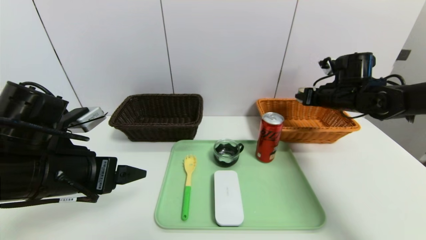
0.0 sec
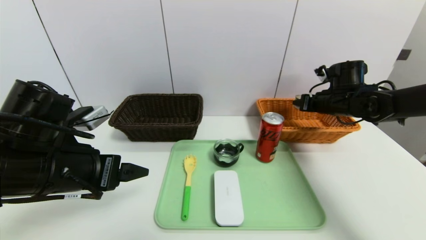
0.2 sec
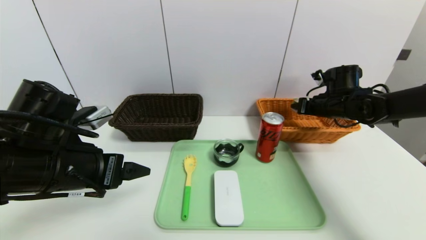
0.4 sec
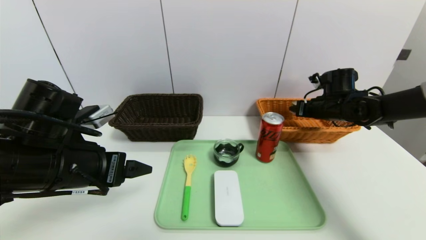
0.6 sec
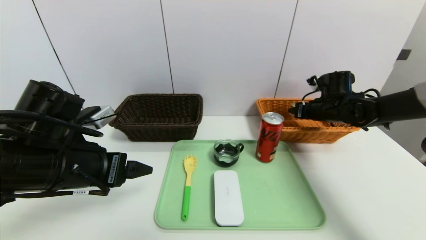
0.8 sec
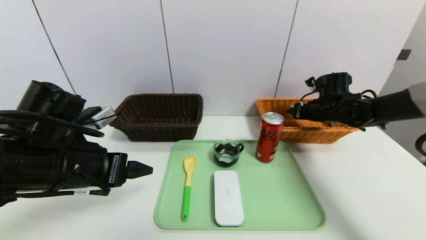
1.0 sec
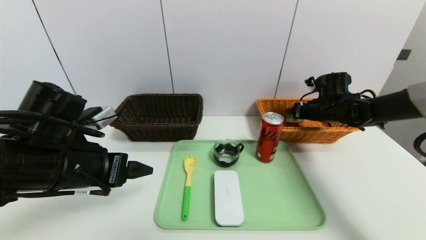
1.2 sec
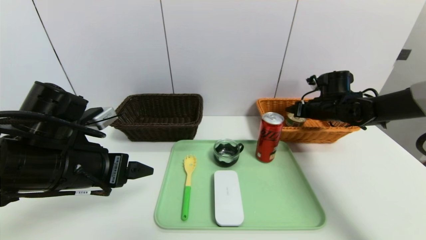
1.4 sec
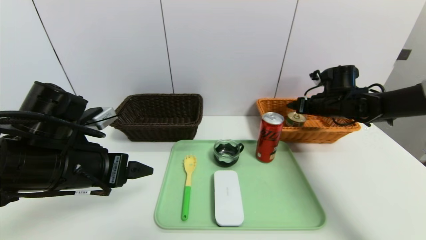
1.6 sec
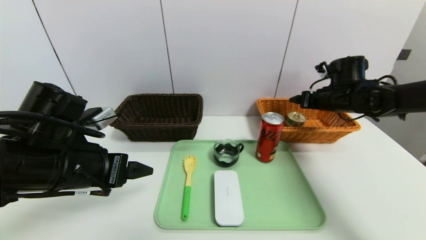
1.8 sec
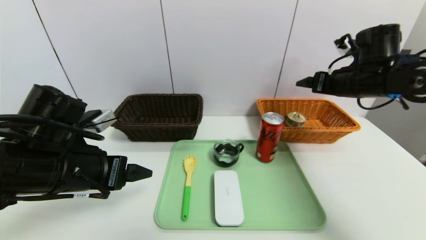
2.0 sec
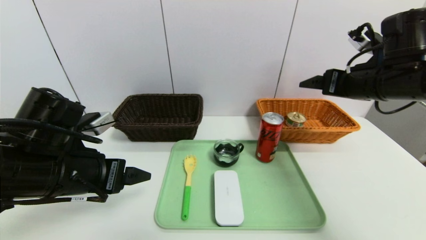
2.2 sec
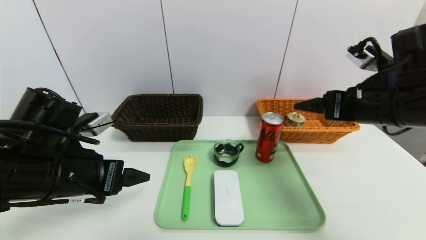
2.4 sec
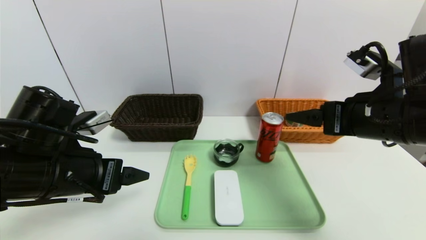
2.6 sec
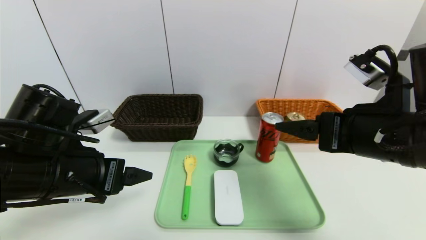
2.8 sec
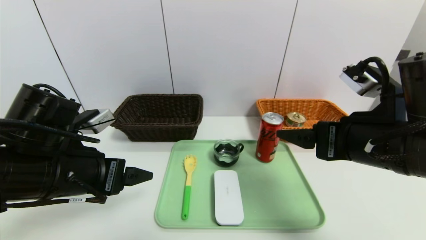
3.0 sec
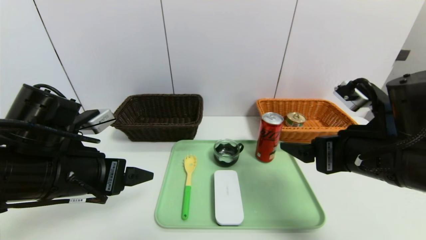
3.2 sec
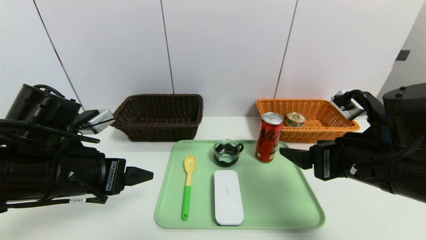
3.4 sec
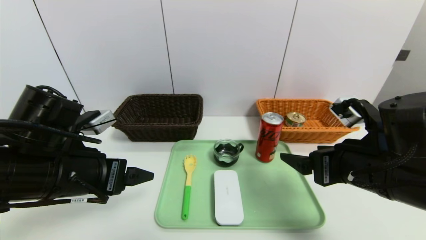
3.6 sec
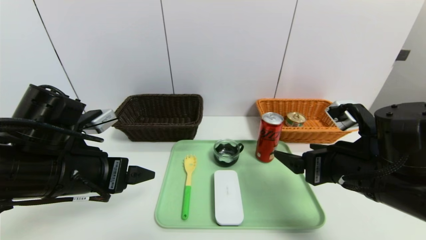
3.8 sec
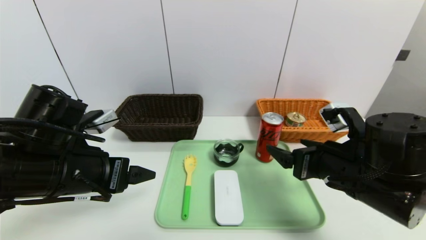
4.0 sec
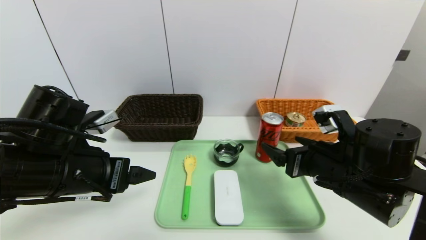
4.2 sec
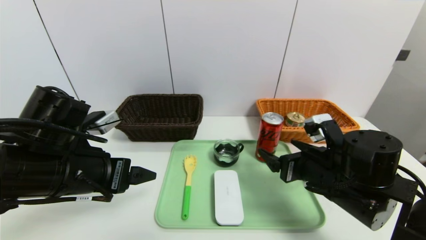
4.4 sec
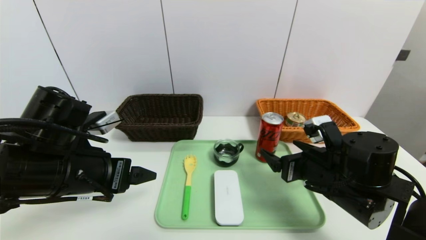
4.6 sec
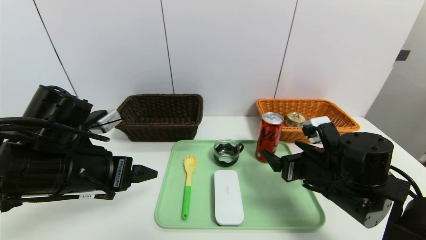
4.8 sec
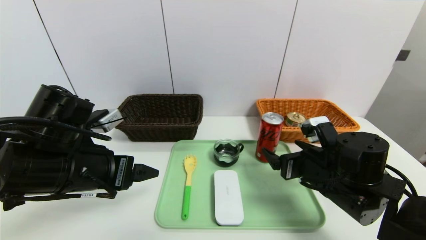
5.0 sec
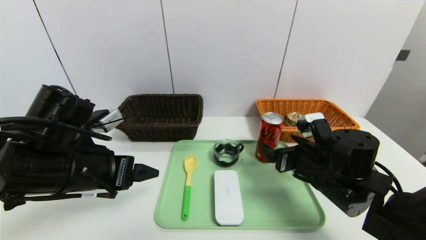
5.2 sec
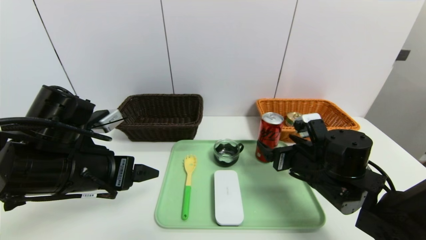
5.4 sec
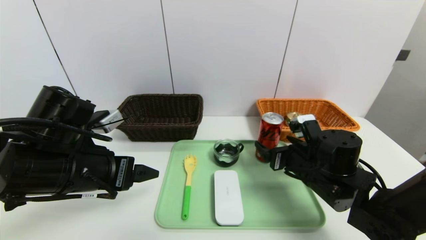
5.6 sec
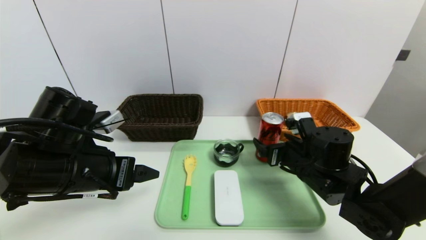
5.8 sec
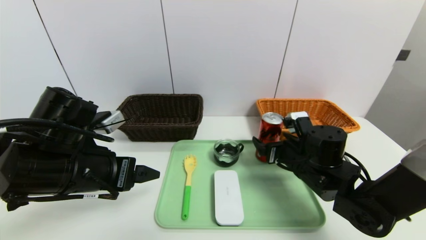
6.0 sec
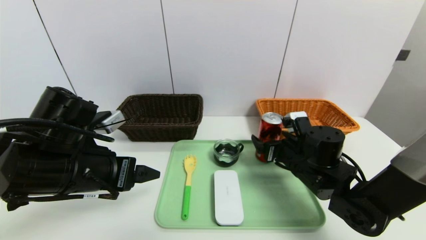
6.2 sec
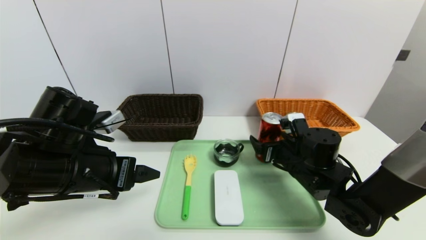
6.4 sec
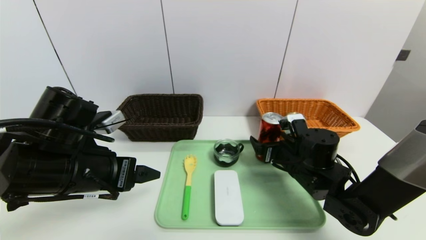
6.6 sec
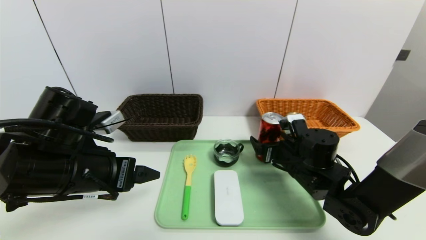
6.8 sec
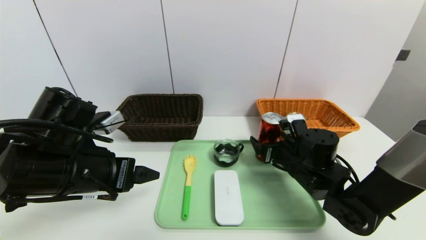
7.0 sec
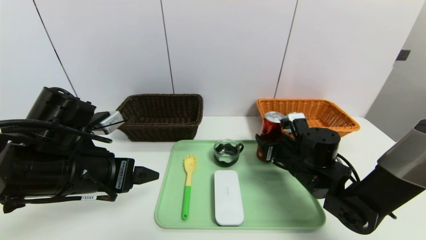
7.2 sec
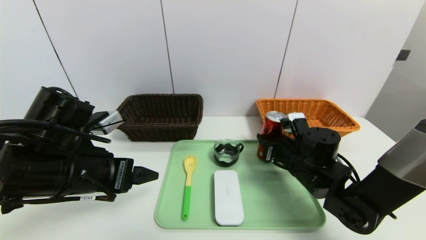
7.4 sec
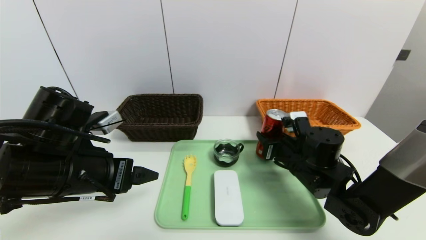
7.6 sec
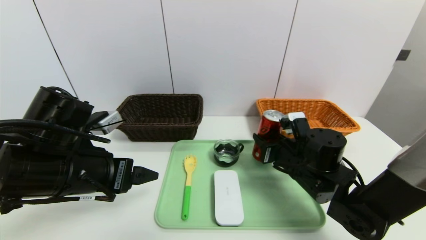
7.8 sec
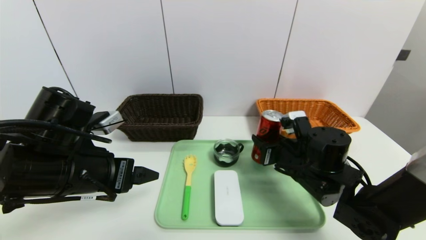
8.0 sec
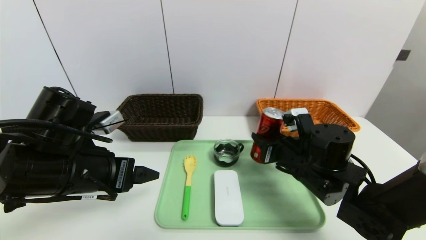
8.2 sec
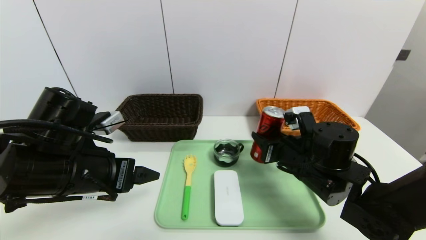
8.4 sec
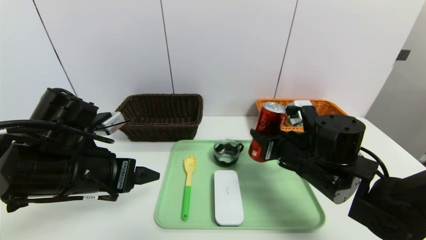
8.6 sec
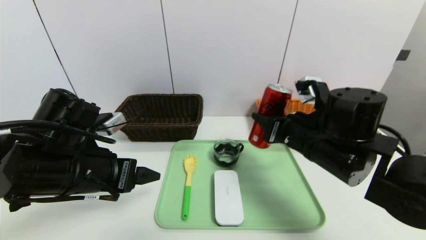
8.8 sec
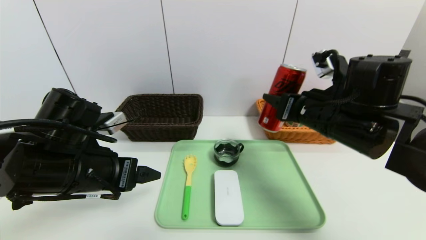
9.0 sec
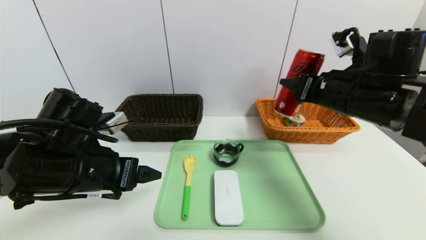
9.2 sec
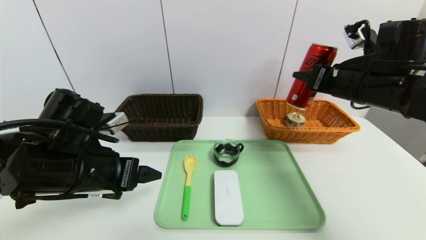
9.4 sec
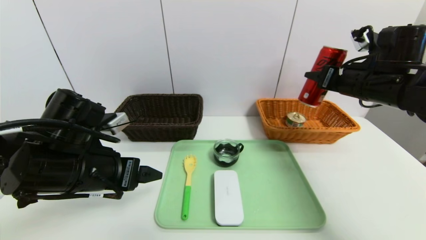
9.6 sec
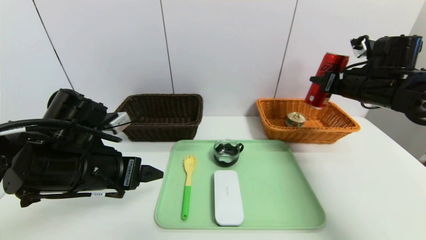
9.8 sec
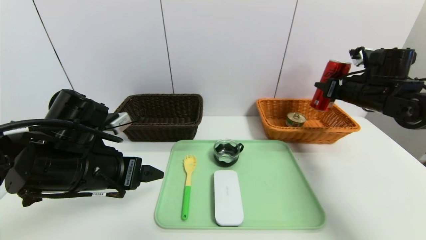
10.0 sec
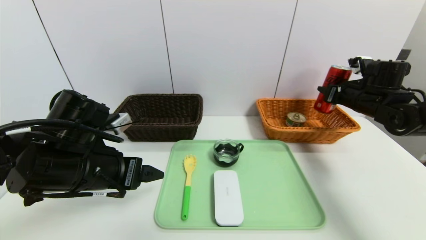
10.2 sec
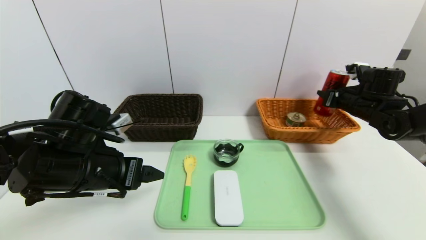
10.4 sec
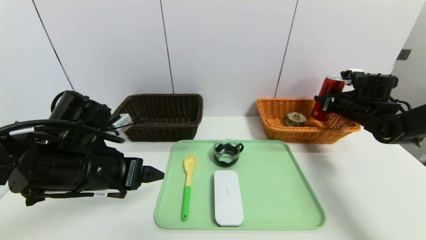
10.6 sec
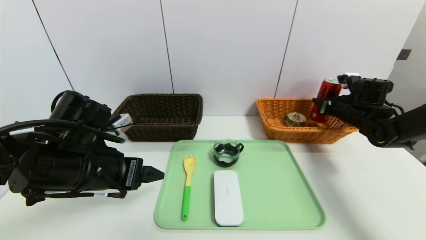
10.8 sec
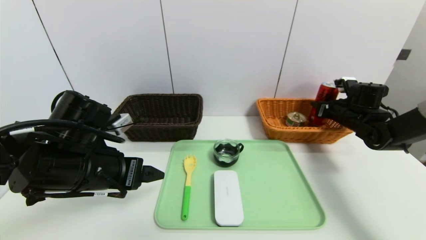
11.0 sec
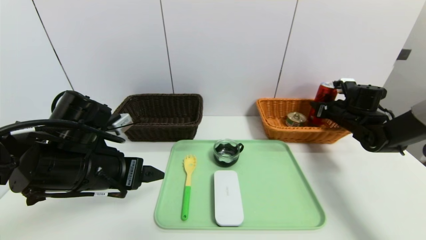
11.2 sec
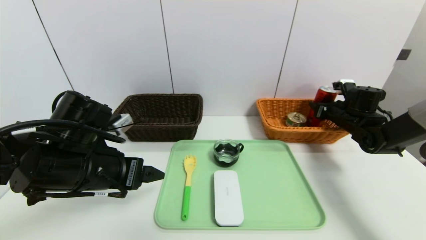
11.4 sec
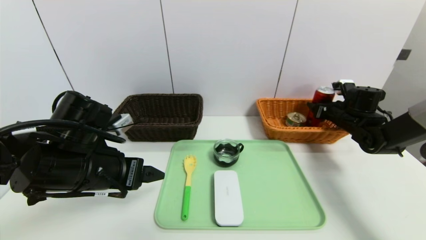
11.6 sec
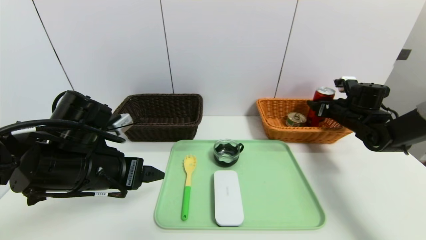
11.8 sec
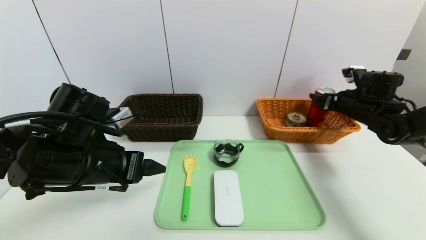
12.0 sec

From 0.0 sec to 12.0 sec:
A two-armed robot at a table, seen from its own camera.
Task of the whole recording: place the food in the right basket with the right gripper, and place the non food items in the left basket with the left gripper.
Step, from 0.0 sec to 2.0 sec: Grasp the tin and put it in the right basket.
From 0.0 sec to 1.6 sec: The right gripper opens its fingers.
From 1.6 sec to 3.0 sec: The right gripper shifts roughly 25 cm backward.
From 3.0 sec to 4.4 sec: The right gripper moves downward, roughly 10 cm.
From 4.4 sec to 6.0 sec: The right gripper heads forward, covering about 5 cm.
From 6.0 sec to 7.6 sec: The right gripper closes up.
From 7.6 sec to 9.0 sec: The right gripper travels upward by roughly 15 cm.
From 9.0 sec to 10.4 sec: The right gripper is displaced to the right and forward by approximately 20 cm.
From 10.4 sec to 12.0 sec: The right gripper opens its fingers.

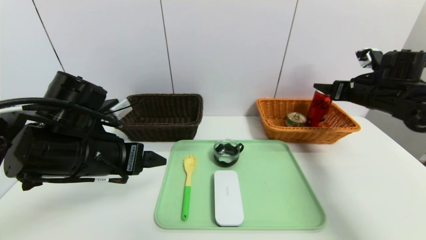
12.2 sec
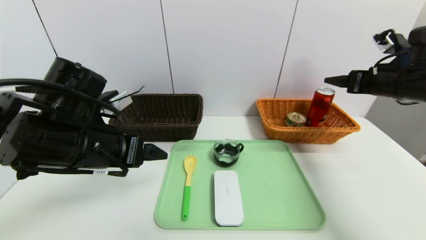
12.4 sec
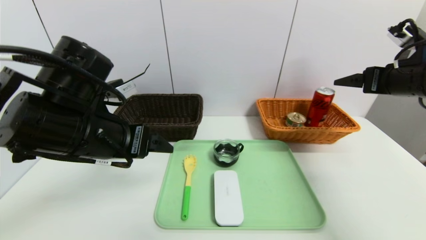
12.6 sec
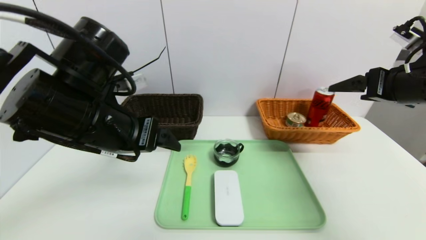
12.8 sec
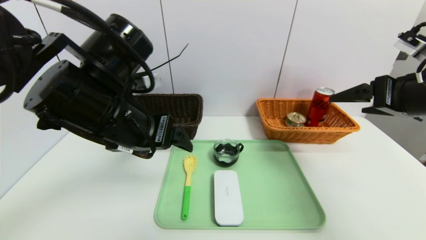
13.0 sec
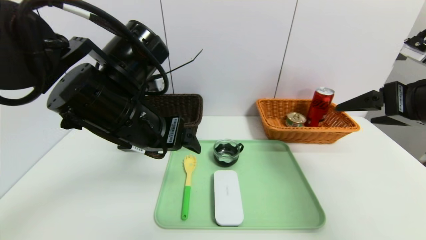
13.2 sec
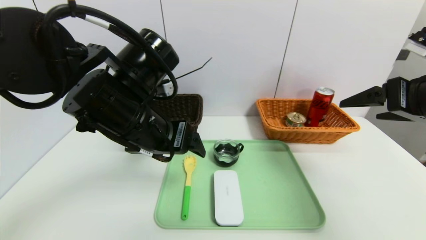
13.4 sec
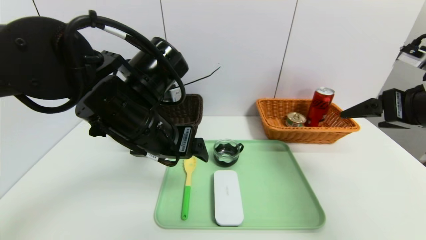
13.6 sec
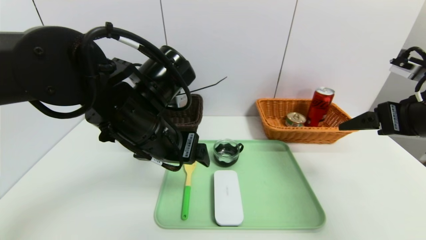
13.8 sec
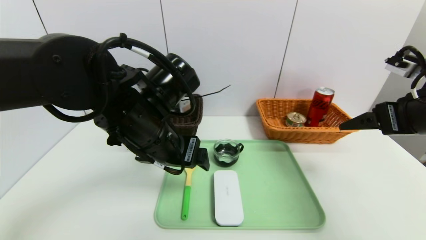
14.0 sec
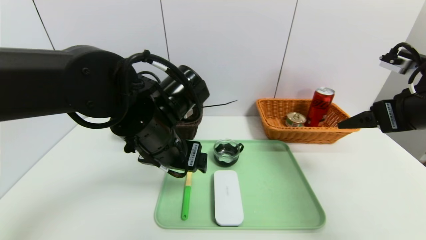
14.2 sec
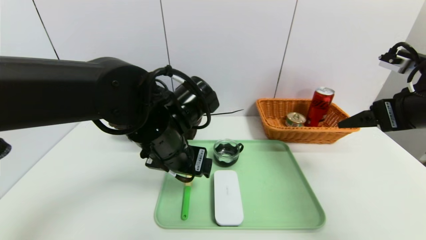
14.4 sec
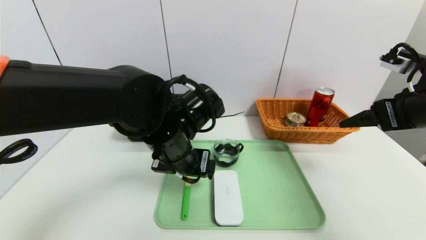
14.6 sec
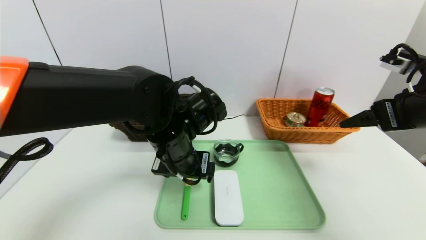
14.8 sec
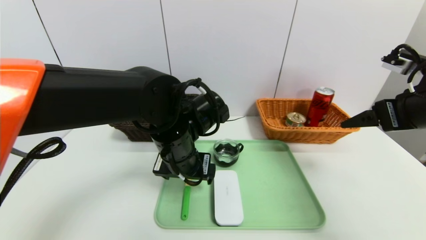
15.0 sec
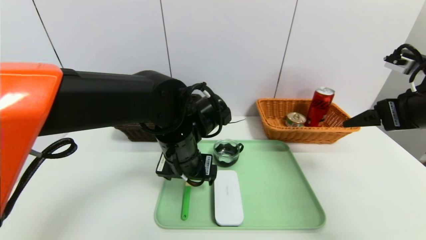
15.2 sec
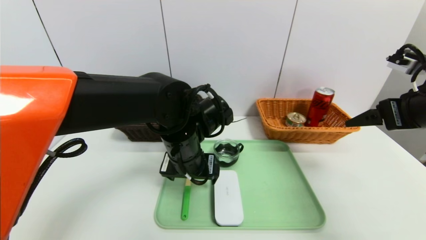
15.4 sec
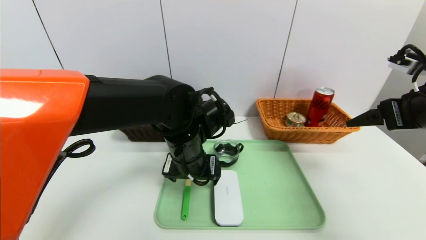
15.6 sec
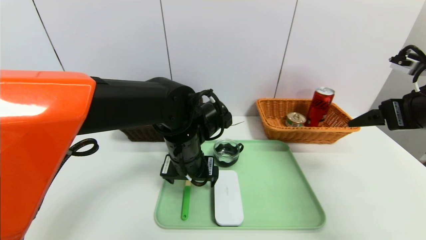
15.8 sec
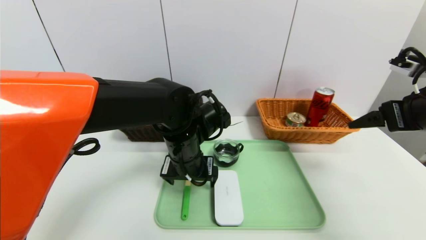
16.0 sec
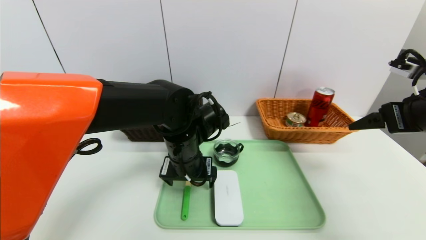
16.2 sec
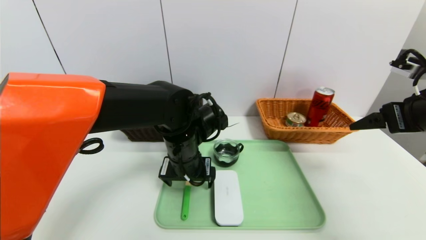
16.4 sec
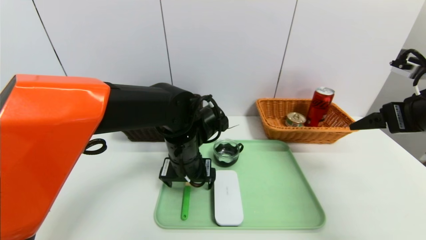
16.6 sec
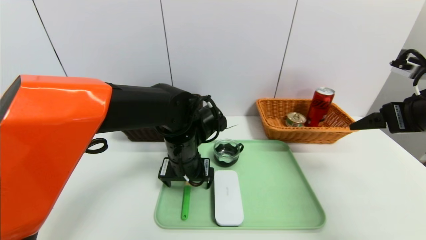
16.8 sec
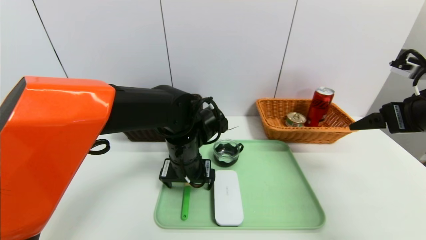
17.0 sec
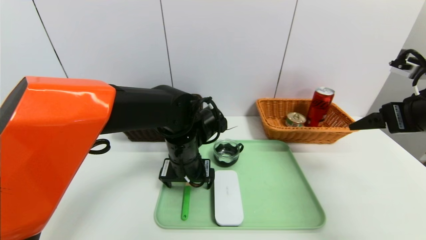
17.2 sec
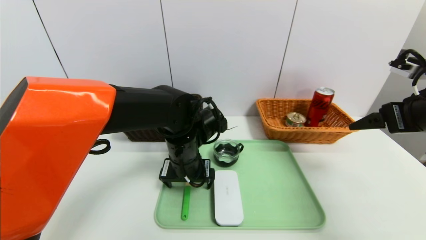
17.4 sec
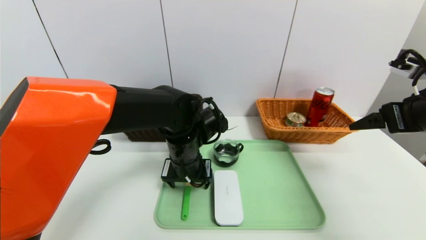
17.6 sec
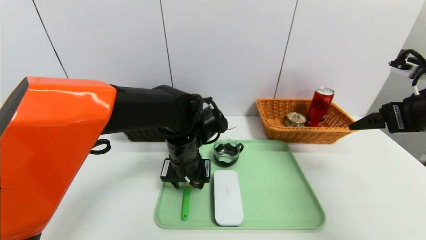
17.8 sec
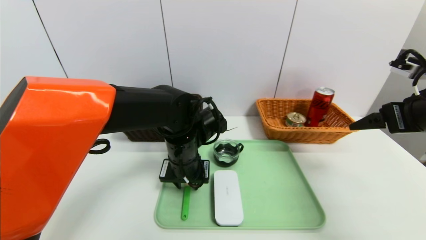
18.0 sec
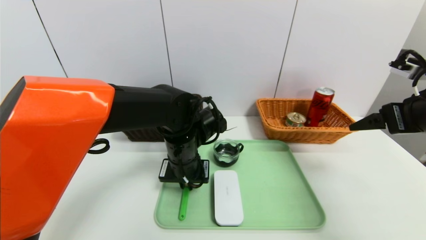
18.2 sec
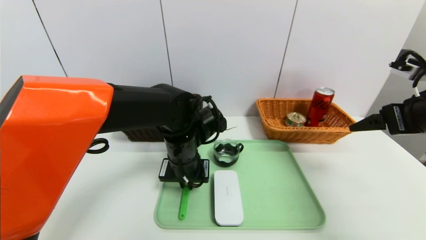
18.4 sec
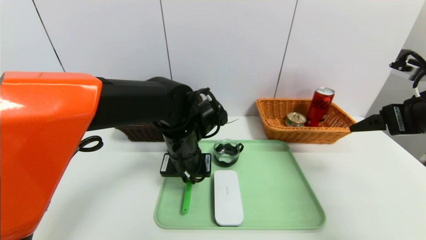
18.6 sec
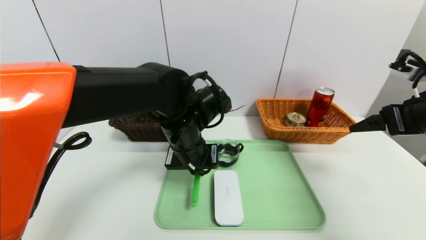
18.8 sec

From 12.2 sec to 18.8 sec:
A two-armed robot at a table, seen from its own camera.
Task of the whole recording: place the food in the right basket with the right gripper, and place the non food items in the left basket with the left gripper.
From 12.2 sec to 13.8 sec: The right gripper is displaced backward by about 15 cm, while the left gripper shifts approximately 10 cm to the right.
From 13.8 sec to 15.4 sec: The left gripper shifts roughly 10 cm downward and to the right.
From 15.4 sec to 17.2 sec: The grippers move only a little.
From 17.2 sec to 18.8 sec: The left gripper travels upward by some 5 cm, and closes its fingers.
